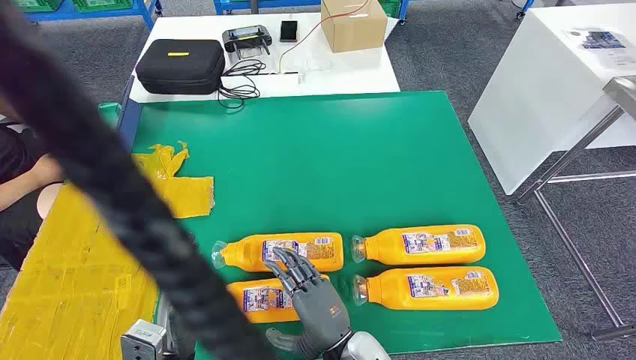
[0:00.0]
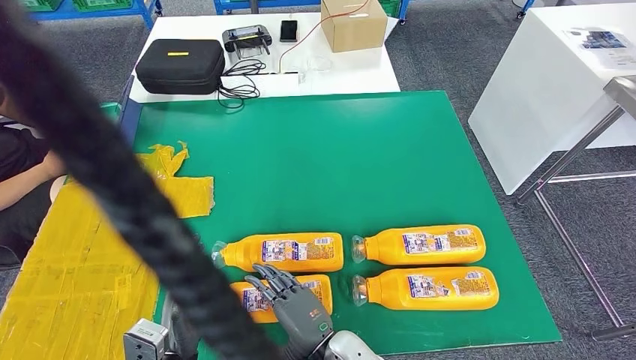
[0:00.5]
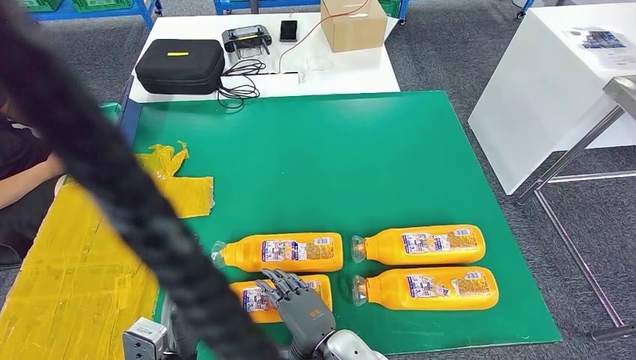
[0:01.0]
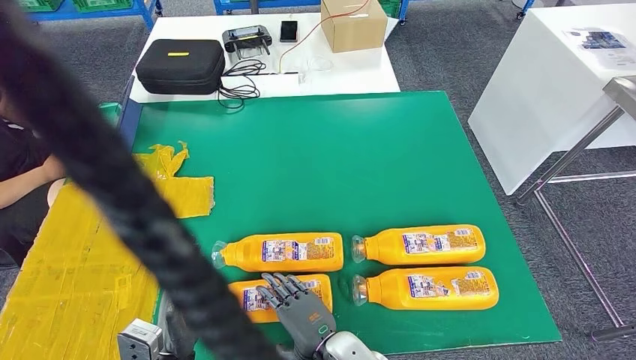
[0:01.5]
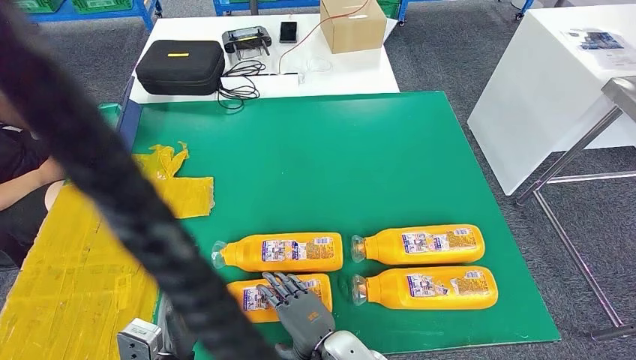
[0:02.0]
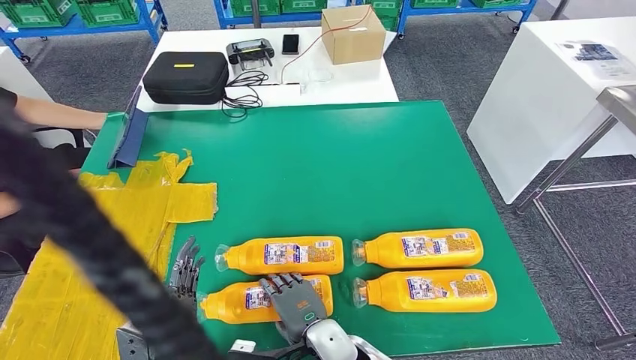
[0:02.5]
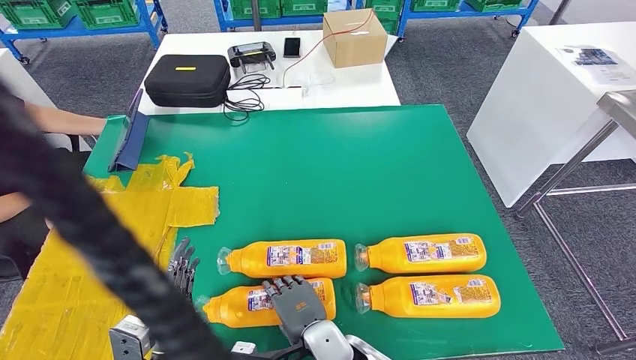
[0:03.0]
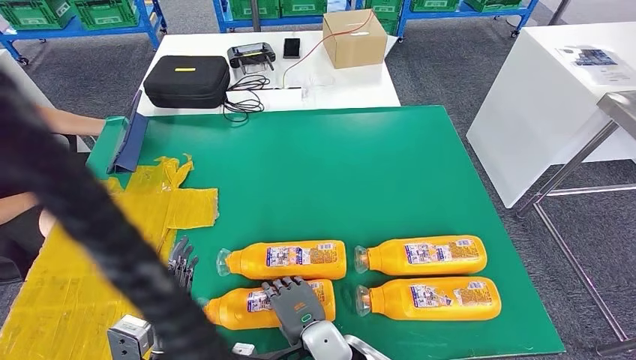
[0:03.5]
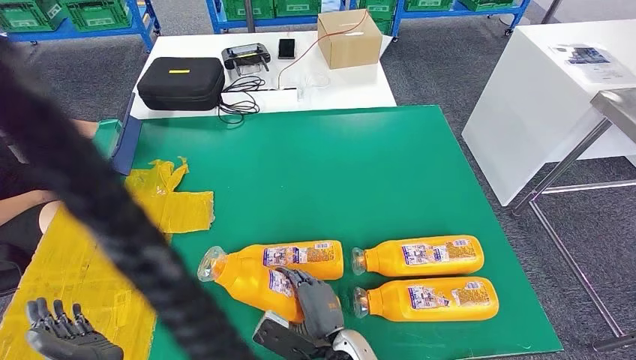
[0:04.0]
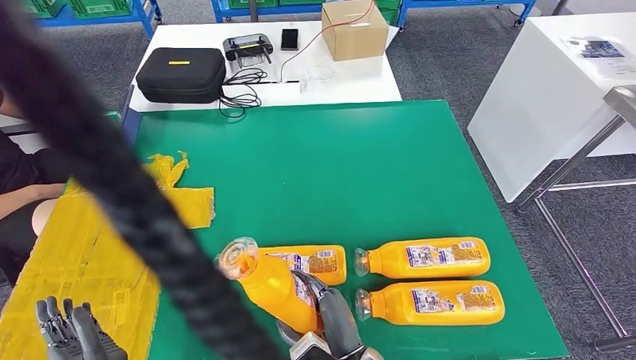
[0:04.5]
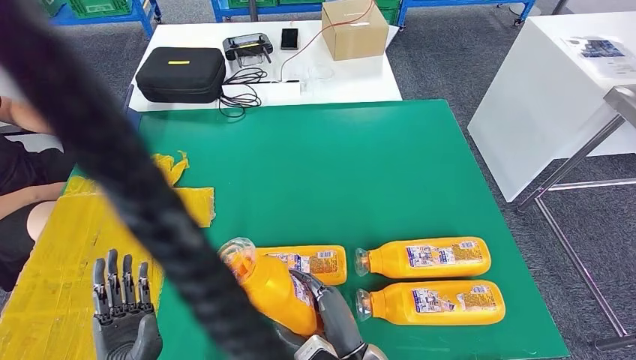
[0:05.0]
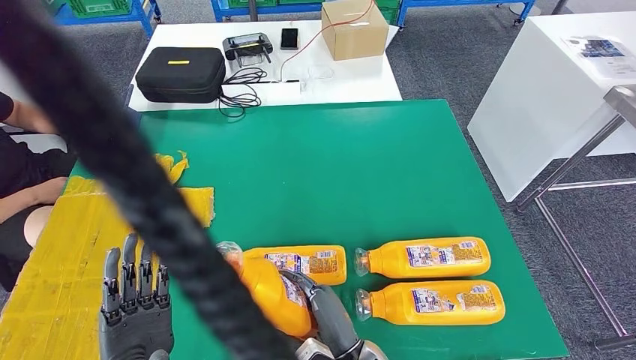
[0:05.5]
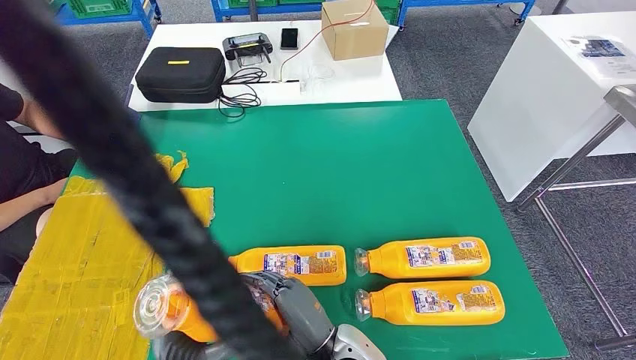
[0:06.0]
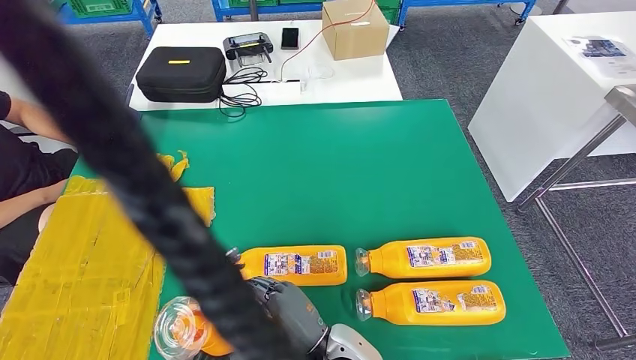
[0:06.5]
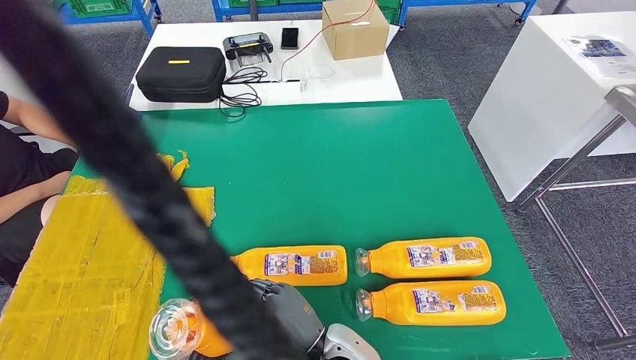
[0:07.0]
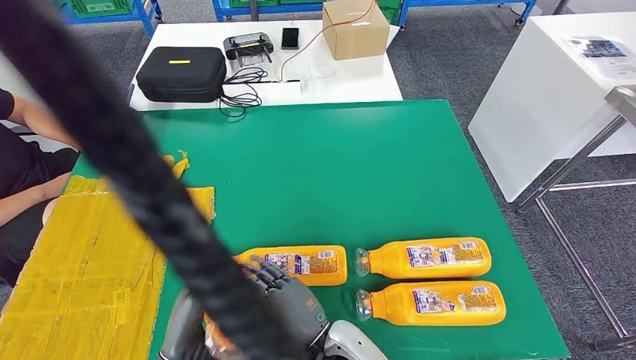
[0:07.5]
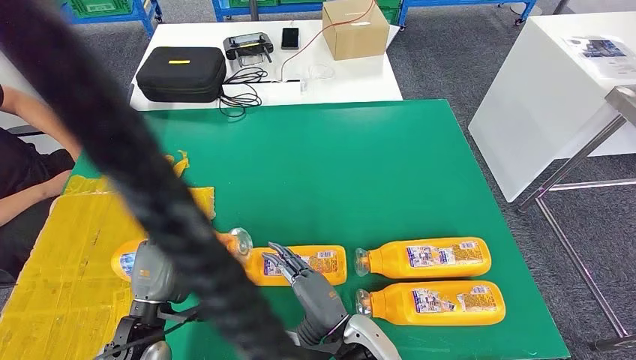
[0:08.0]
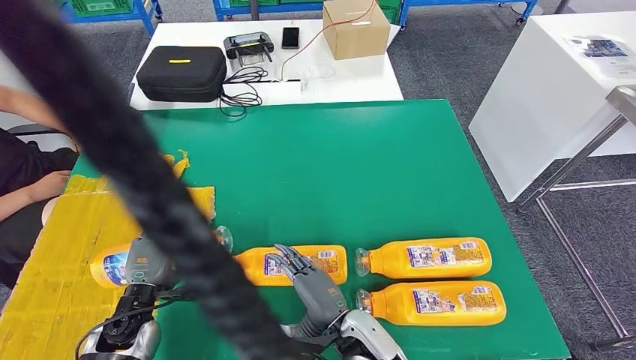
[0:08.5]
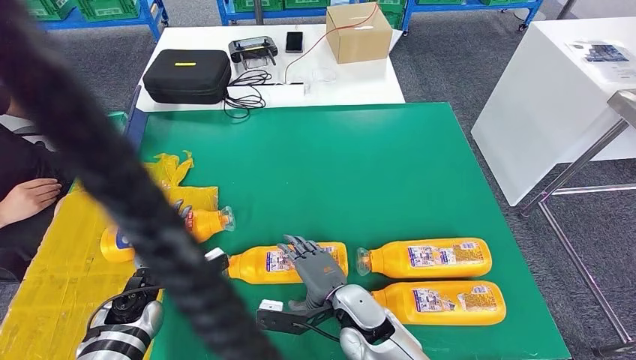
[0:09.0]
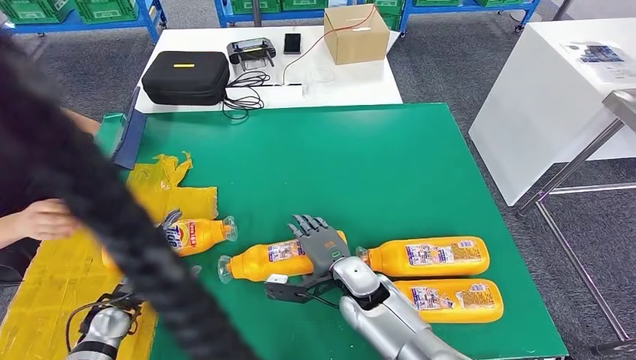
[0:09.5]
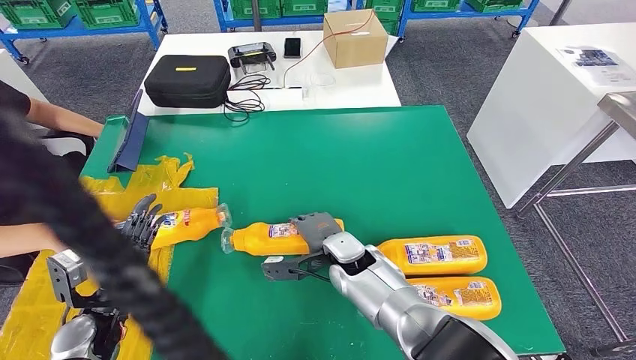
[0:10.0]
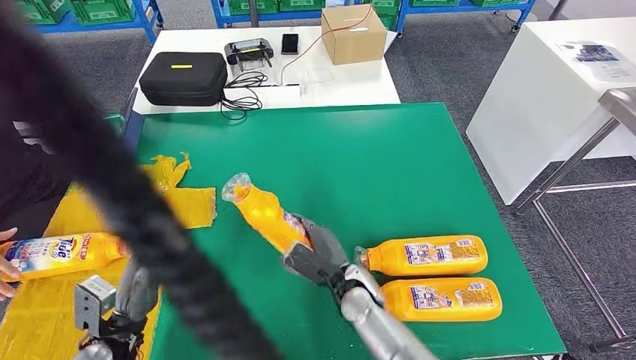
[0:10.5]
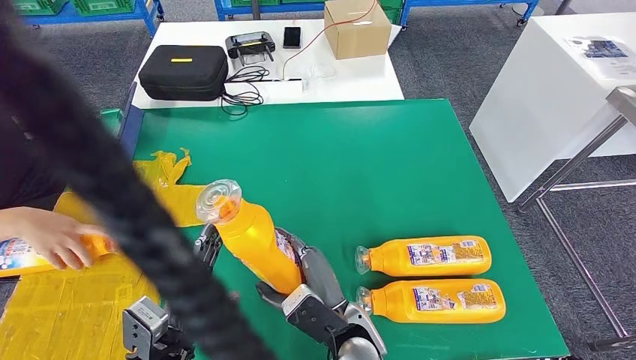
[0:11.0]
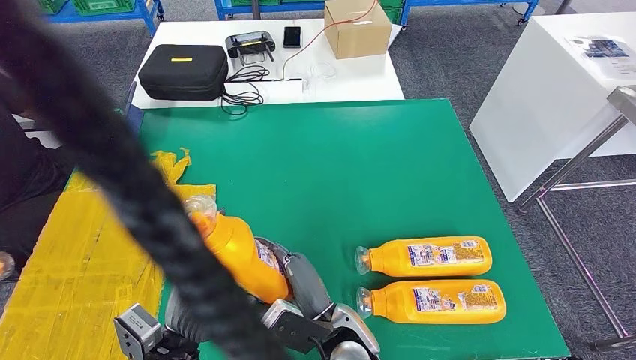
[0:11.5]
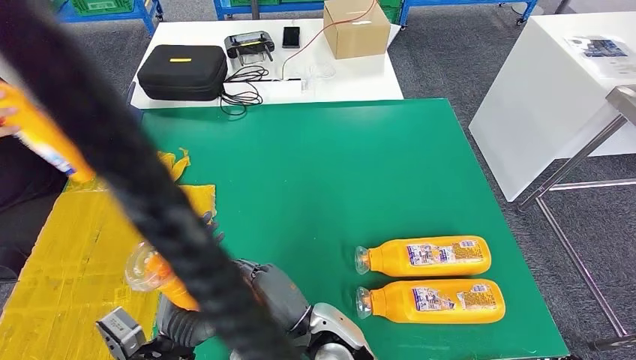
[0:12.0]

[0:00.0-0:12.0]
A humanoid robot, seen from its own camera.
Step, 0:00.0 to 0:04.0: Take the bottle from the table.
Step, 0:04.5 to 0:09.0: Flip the bottle to face forward.
0:06.0 to 0:08.0: The left hand moves forward and to the left, about 10 cm.

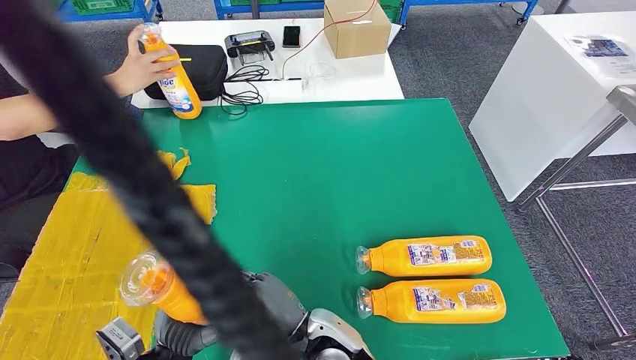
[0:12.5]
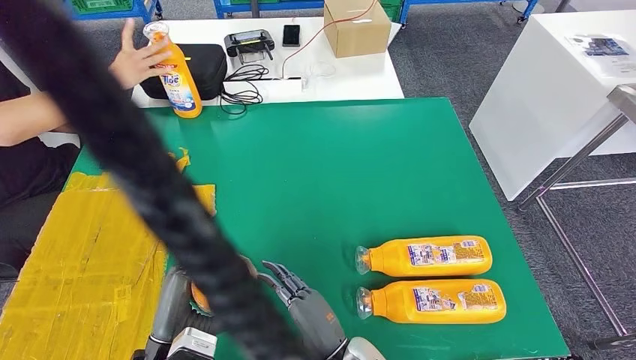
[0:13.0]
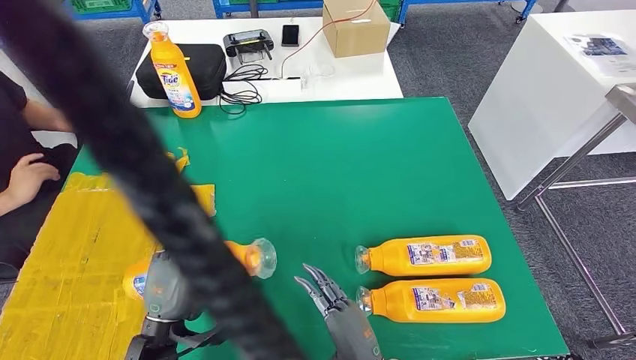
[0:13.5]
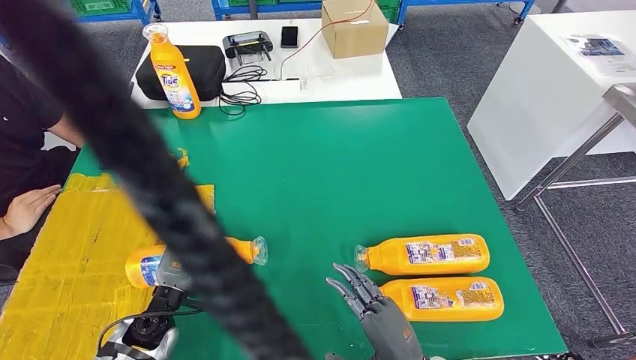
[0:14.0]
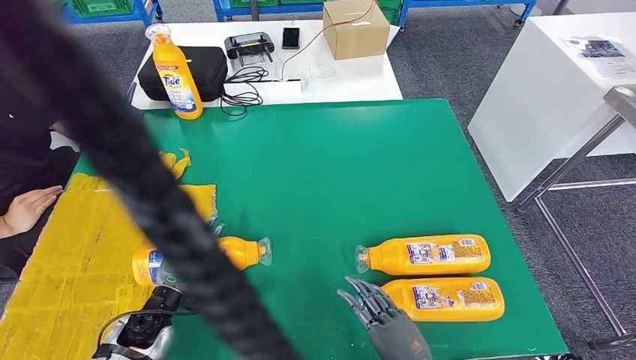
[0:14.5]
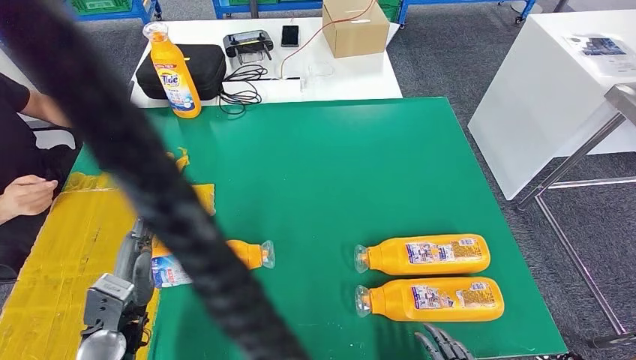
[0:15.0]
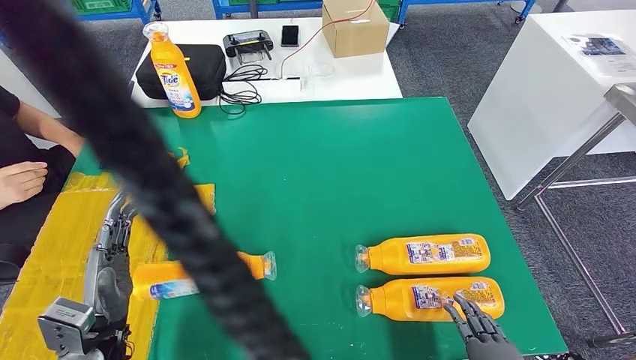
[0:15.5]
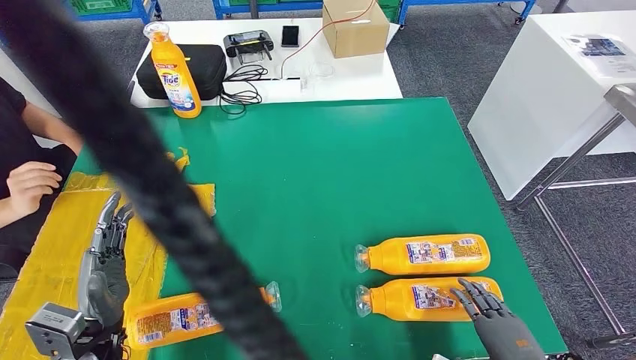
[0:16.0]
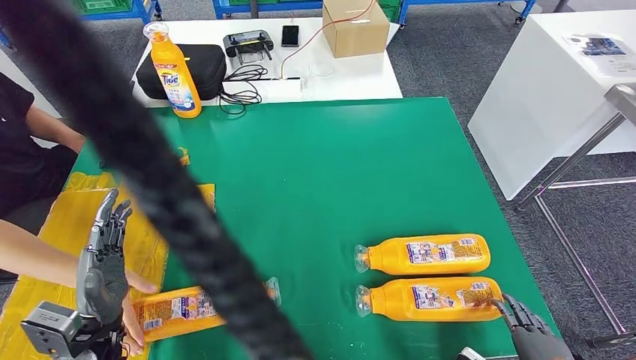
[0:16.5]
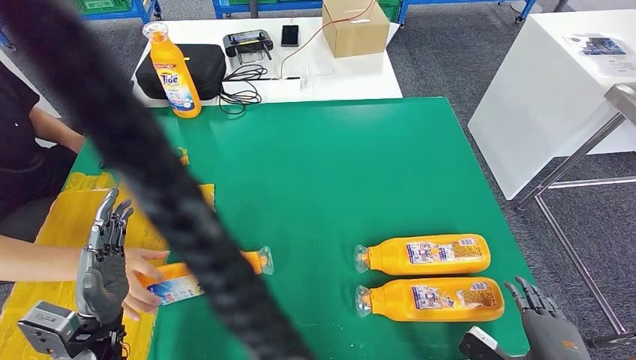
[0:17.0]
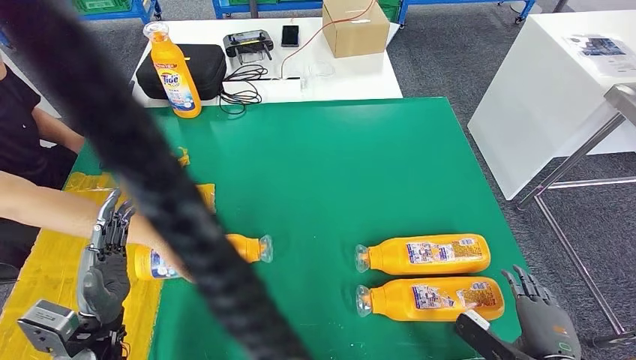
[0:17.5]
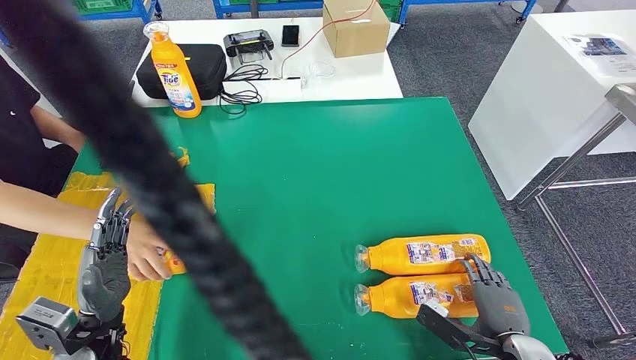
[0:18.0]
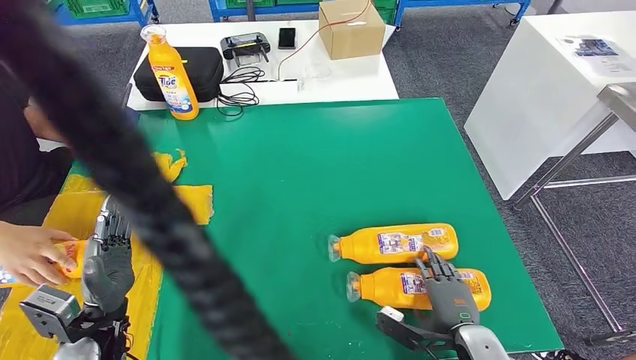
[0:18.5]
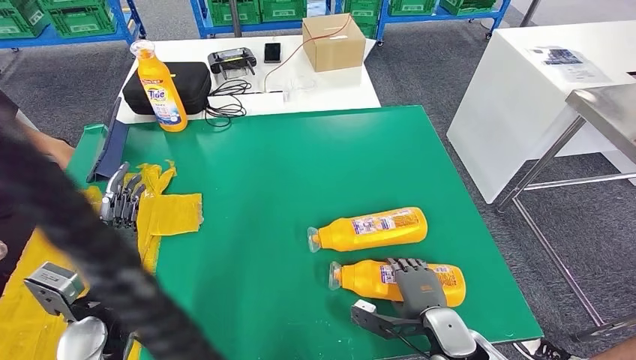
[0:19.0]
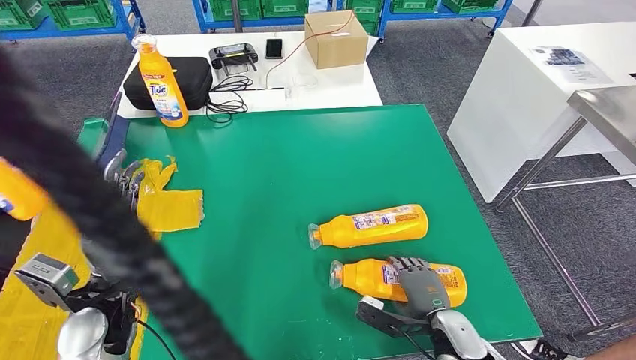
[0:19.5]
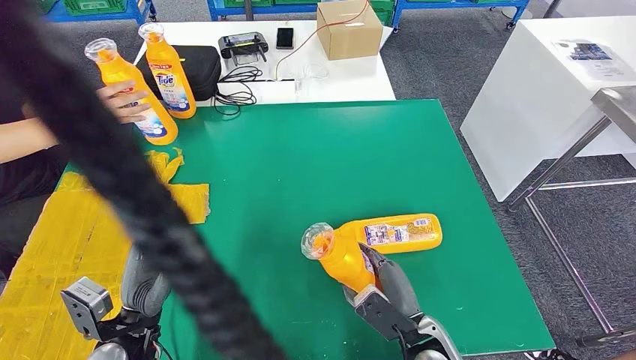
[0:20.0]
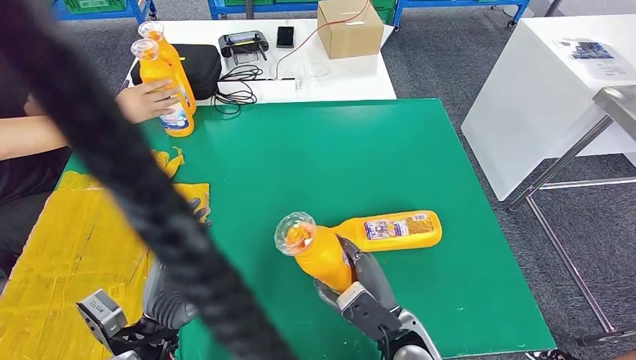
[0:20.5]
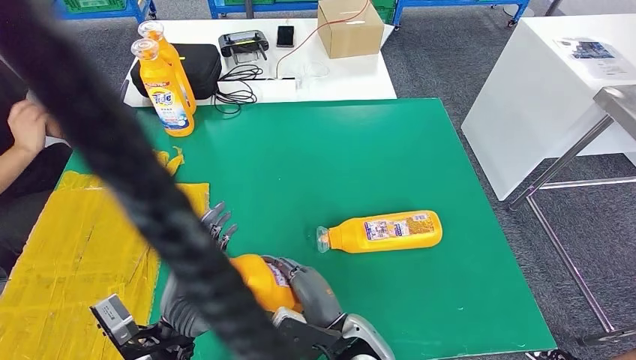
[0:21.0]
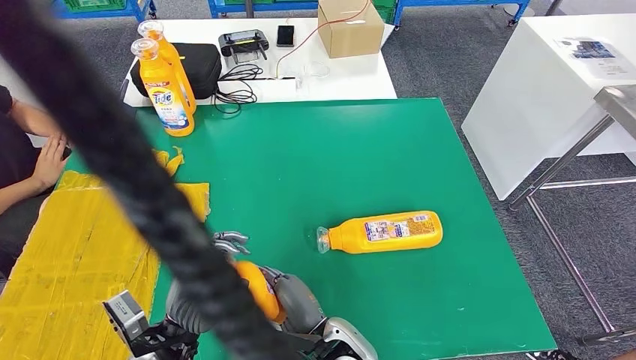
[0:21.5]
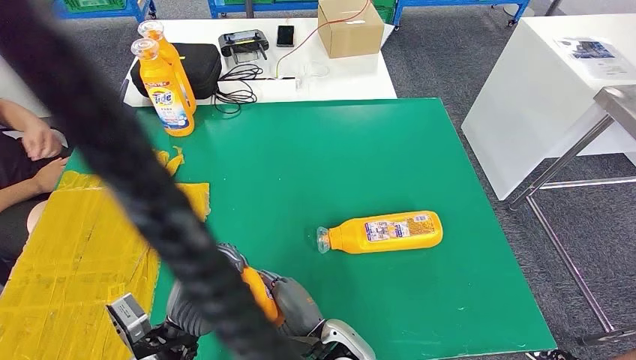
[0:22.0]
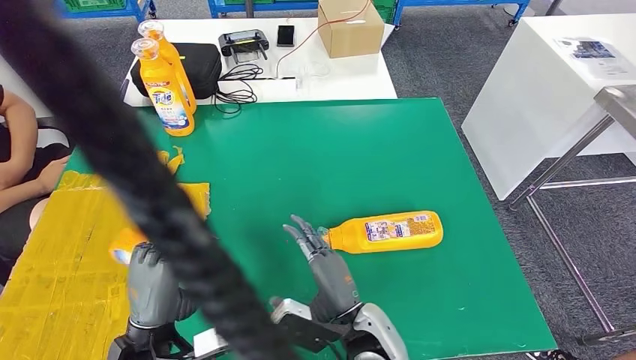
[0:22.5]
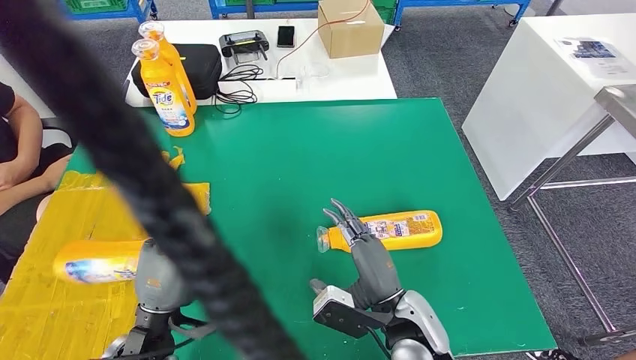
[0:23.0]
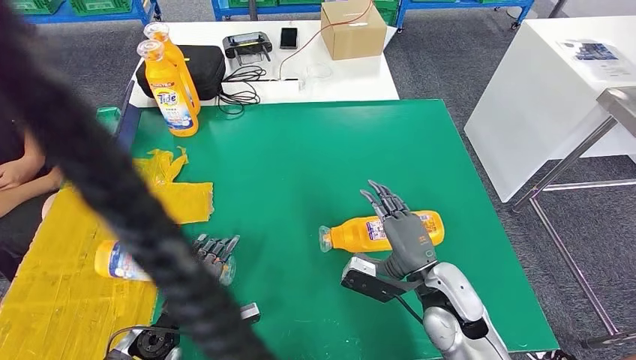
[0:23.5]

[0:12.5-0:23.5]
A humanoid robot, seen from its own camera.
Step, 0:12.5 to 0:15.5: Flip the bottle to face forward.
Step, 0:18.0 to 0:19.5: Pick up the bottle from the table.
0:12.5 to 0:14.5: The left hand shifts about 15 cm forward, downward and to the left; the right hand moves to the right and backward, some 20 cm.
0:14.5 to 0:16.0: The left hand travels upward and backward by about 10 cm. The right hand shifts approximately 15 cm to the right.
0:16.0 to 0:18.0: The right hand shifts roughly 5 cm forward.
